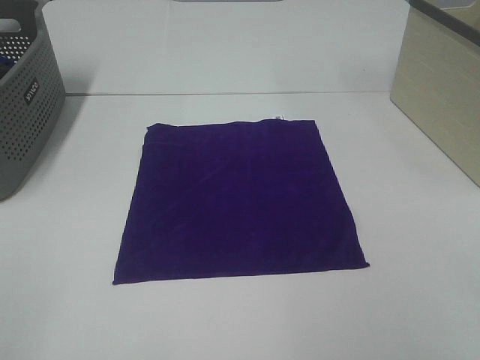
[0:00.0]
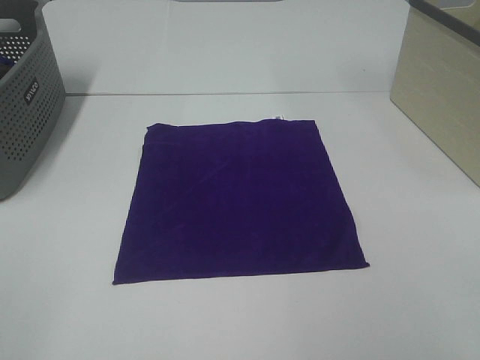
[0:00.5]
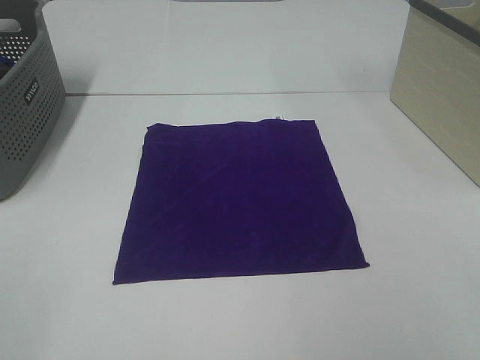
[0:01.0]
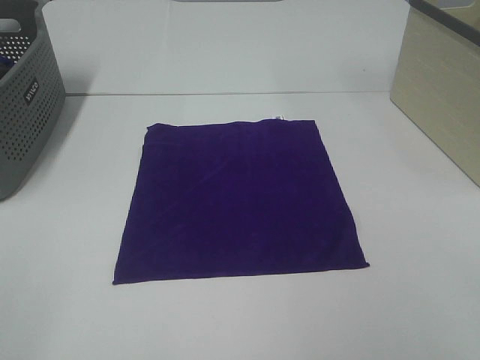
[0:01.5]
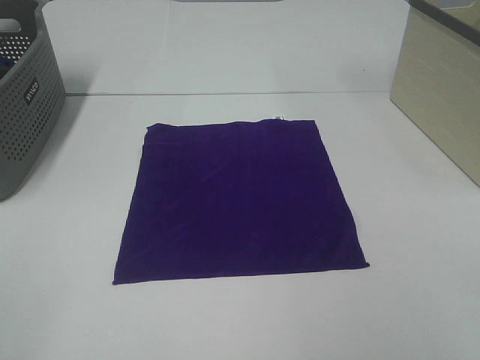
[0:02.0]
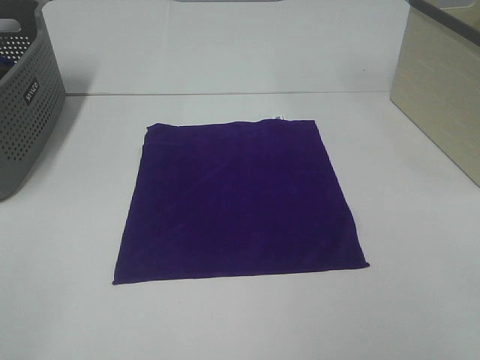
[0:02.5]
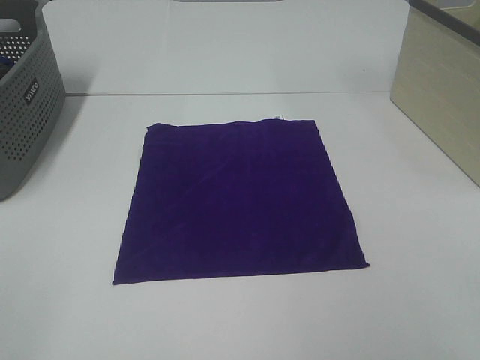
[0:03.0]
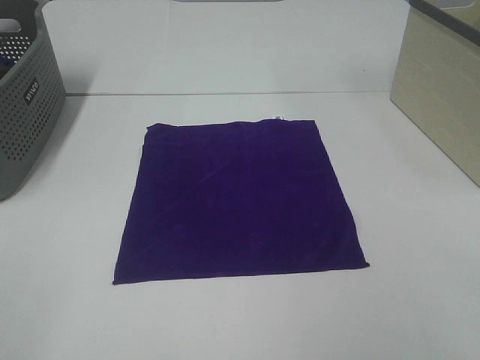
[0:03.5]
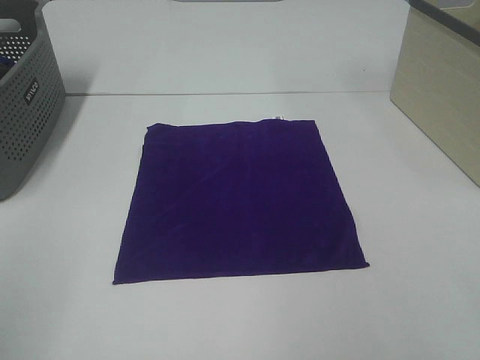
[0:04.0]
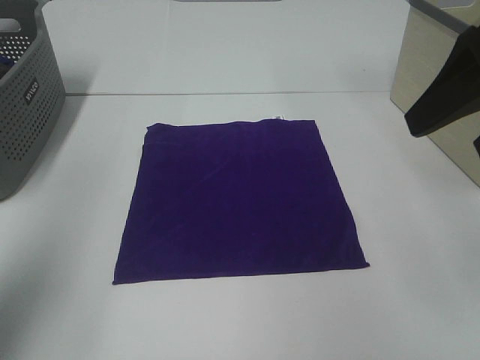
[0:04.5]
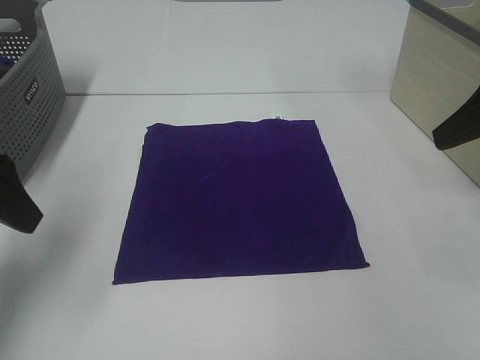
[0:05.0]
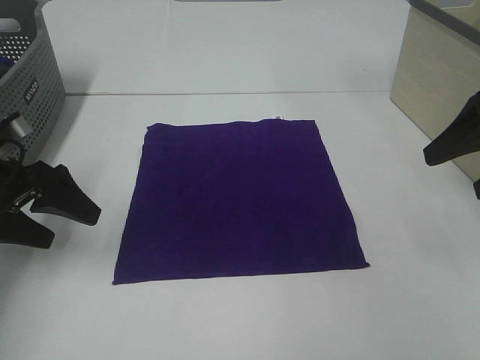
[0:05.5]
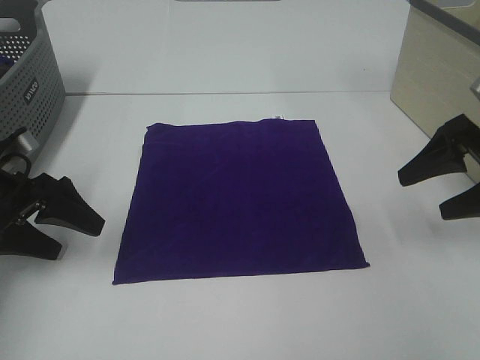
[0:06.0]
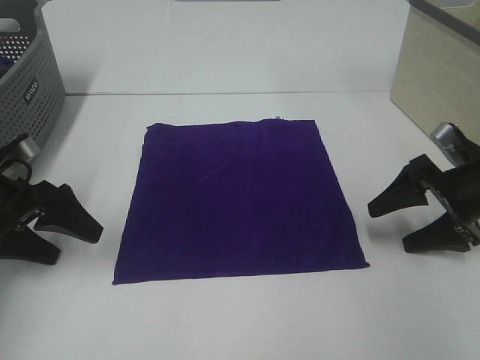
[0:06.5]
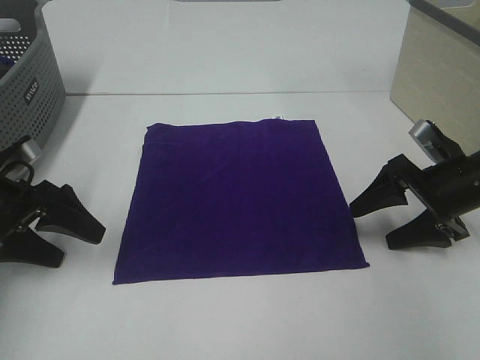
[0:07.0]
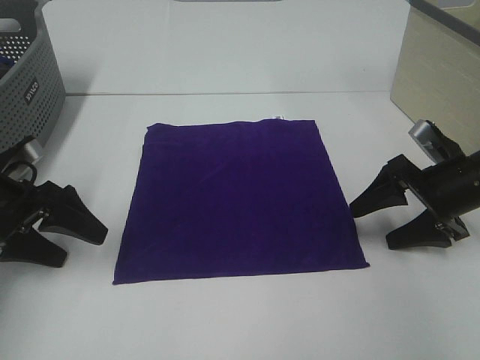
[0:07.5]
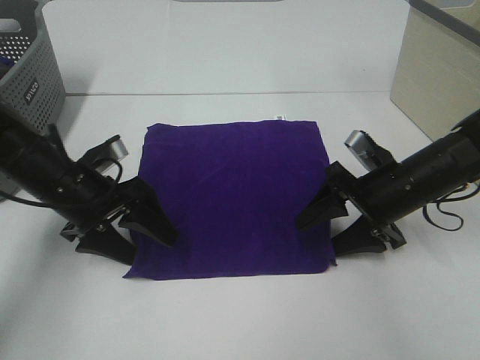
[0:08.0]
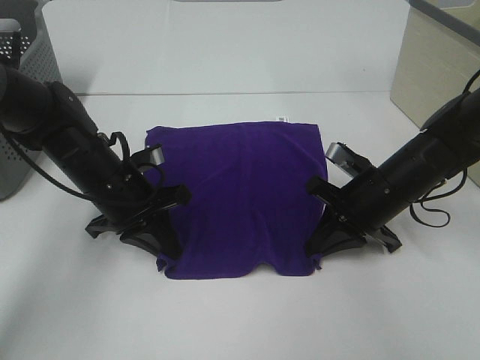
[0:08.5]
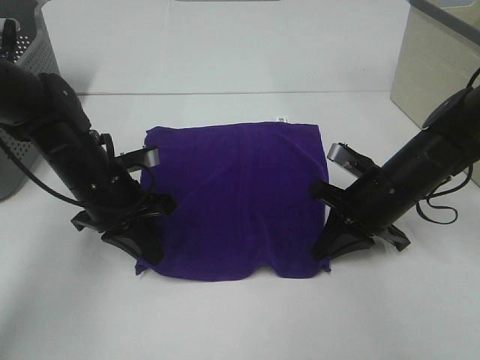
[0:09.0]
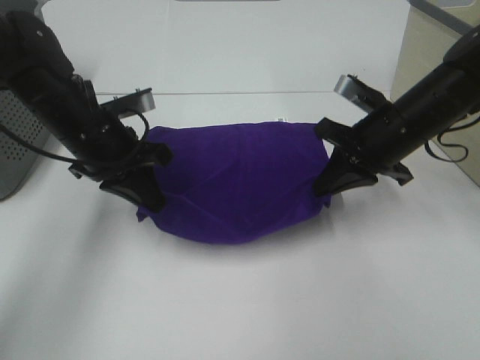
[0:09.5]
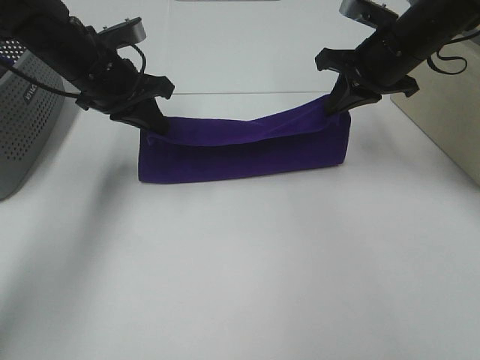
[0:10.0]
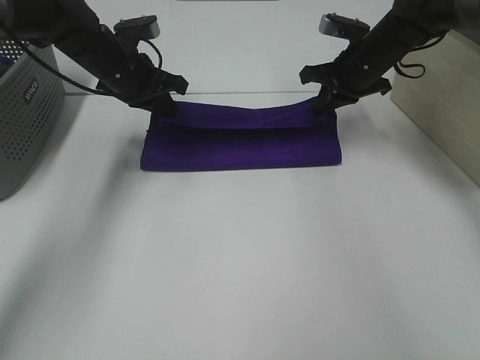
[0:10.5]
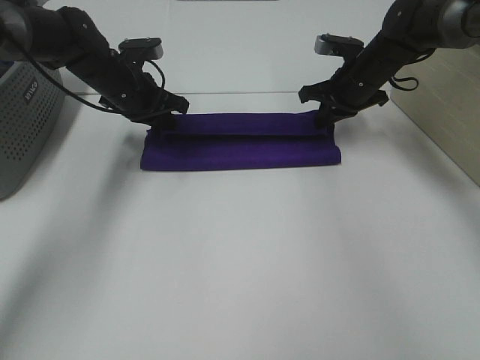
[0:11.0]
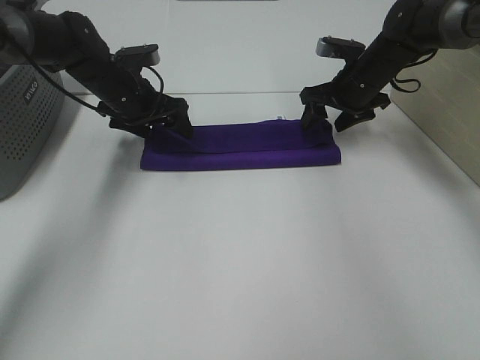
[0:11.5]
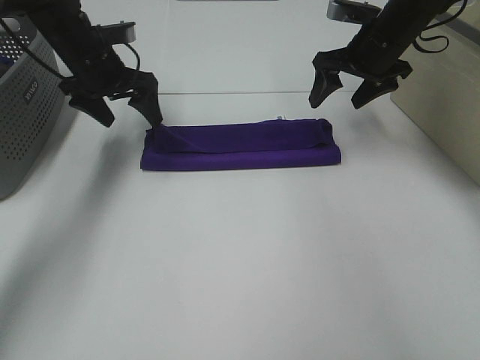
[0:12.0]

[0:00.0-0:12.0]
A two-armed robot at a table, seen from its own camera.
Task of the whole recording: Fold towels.
Step, 0:00.0 to 0:08.0: Left hand: grab the bottom left corner of purple towel.
Step, 0:00.0 to 0:08.0: Right hand: grab the bottom right corner of purple towel.
Step, 0:08.5 to 0:11.0: Left hand: fold the purple towel up.
Step, 0:08.5 to 0:11.0: Right hand: fold the purple towel up.
0:00.0 to 0:02.0: Both grippers stay about where they are.
0:04.0 to 0:06.0: Both grippers move forward and downward, about 30 cm.
0:06.0 to 0:08.0: The left gripper travels to the right by about 10 cm; the right gripper moves to the left and downward, approximately 15 cm.
0:08.0 to 0:10.0: The right gripper travels upward and forward by about 20 cm, and closes its fingers; the left gripper travels forward and upward by some 15 cm, and closes.
0:10.0 to 0:12.0: The two grippers go some 5 cm forward. The right gripper reaches about 10 cm downward, then returns, and opens its fingers; the left gripper opens its fingers.

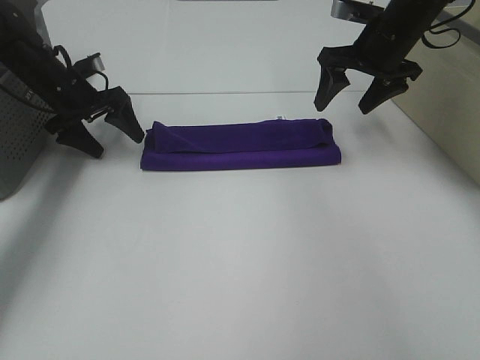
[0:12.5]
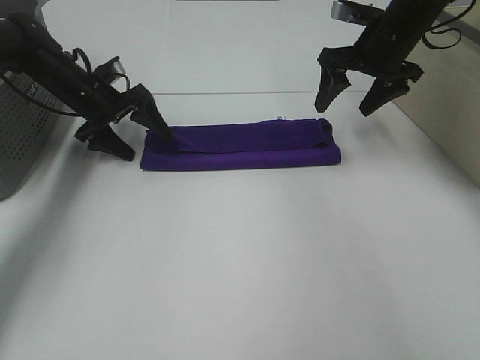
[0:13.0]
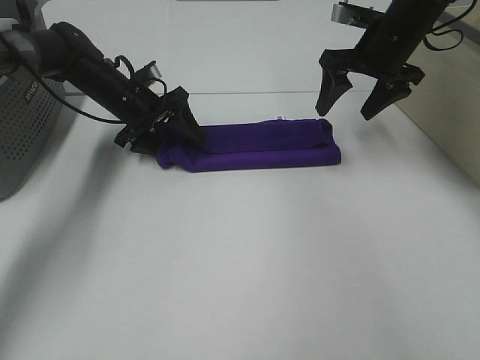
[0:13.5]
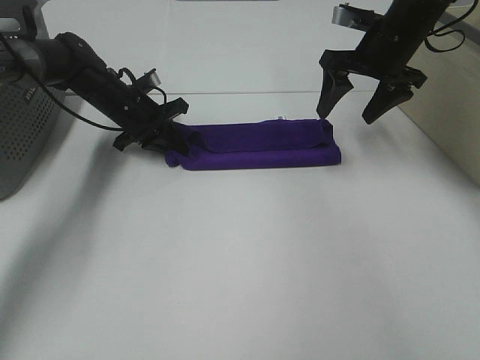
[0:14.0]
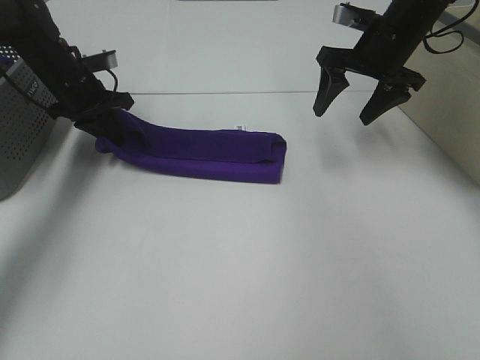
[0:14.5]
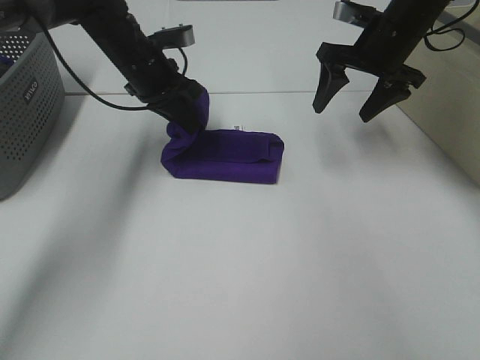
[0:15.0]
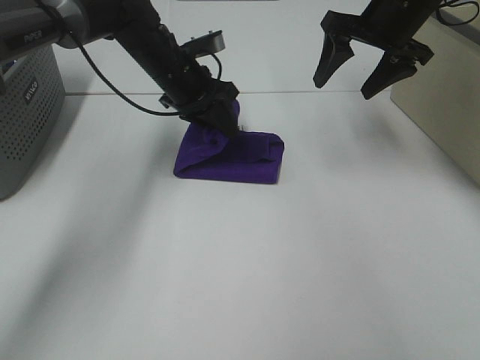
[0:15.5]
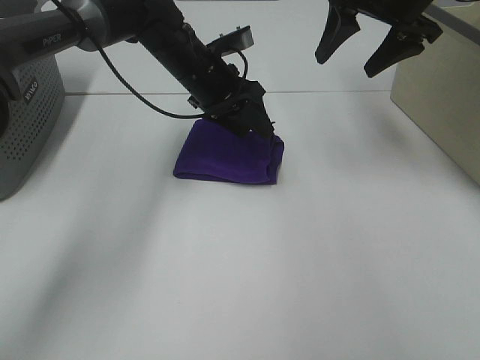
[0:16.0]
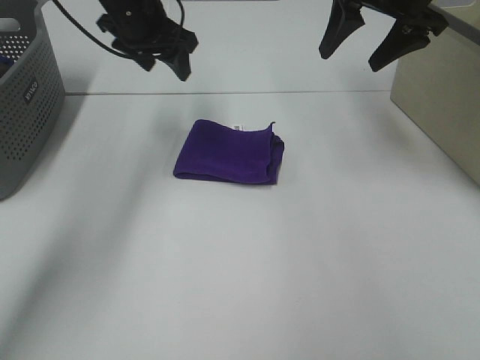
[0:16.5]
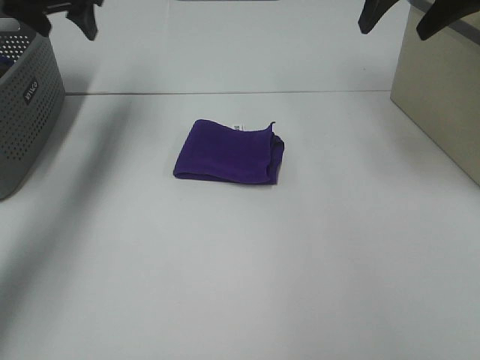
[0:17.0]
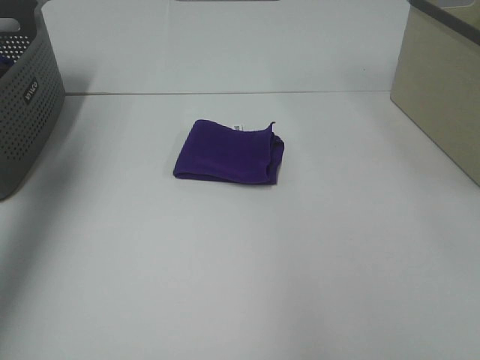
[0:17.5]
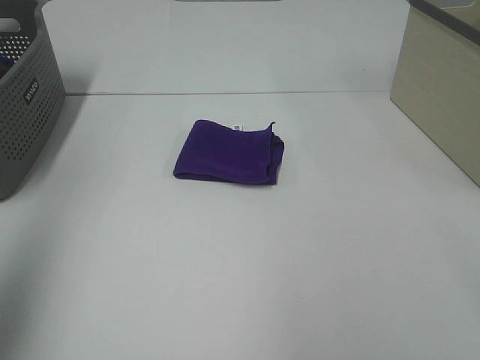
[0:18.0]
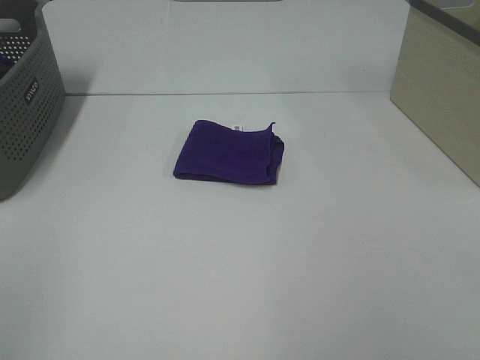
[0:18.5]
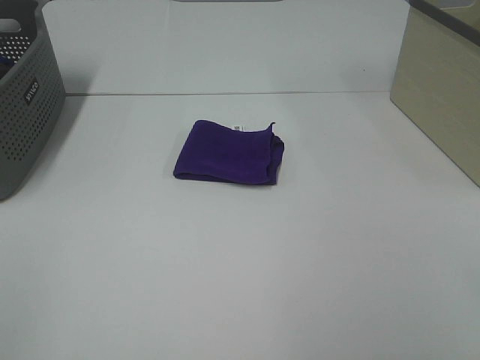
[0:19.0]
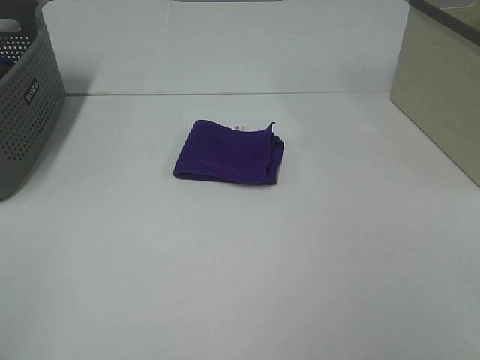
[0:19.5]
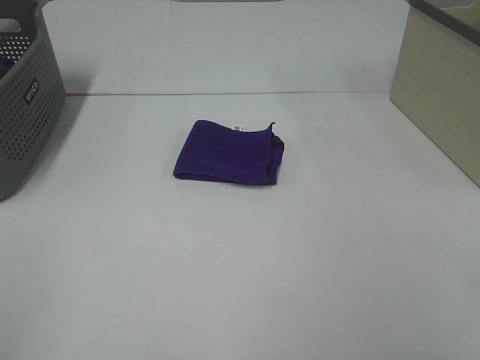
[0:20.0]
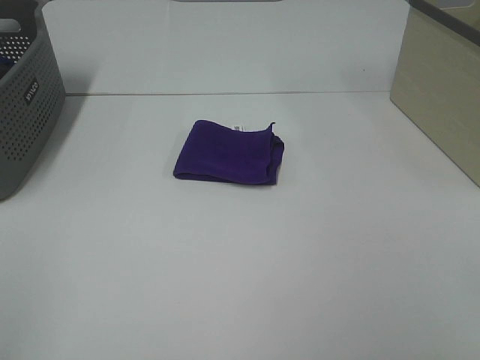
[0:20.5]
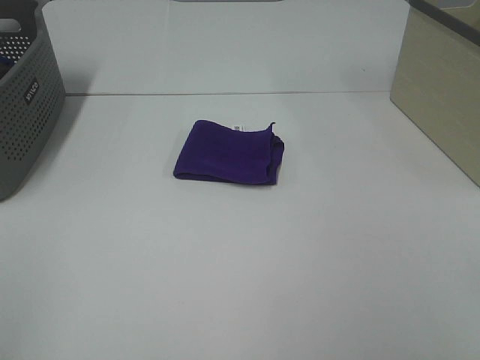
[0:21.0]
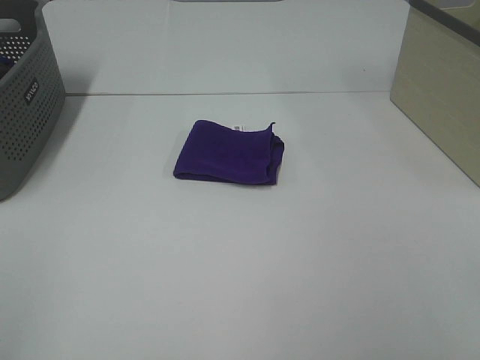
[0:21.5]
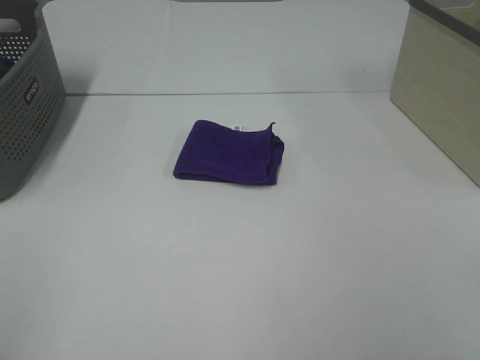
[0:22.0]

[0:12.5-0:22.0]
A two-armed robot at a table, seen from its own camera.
Task of the whole recording: Fold towels.
Step, 0:12.5 to 0:15.5: Left hand: fold the purple towel from left to right.
0:12.5 to 0:14.5: The left gripper reaches approximately 10 cm to the right, then returns, and closes.
0:14.5 to 0:16.5: The right gripper is displaced upward by about 10 cm; the left gripper is displaced upward and to the right by some 15 cm, and opens up.
0:16.5 to 0:18.0: The right gripper goes roughly 35 cm backward. Meanwhile the left gripper heads backward, to the left and upward, covering about 40 cm.
0:18.0 to 0:20.0: The left gripper moves backward and downward, roughly 20 cm.

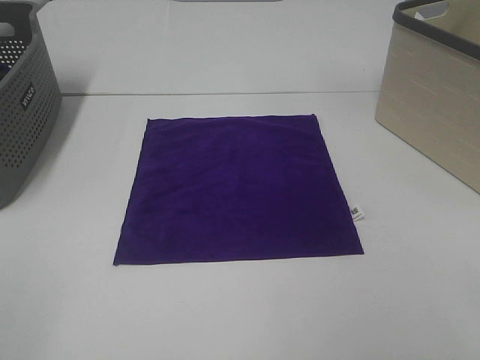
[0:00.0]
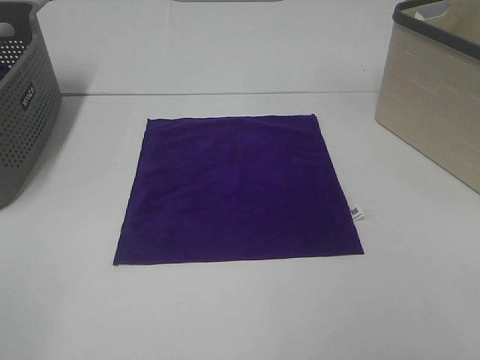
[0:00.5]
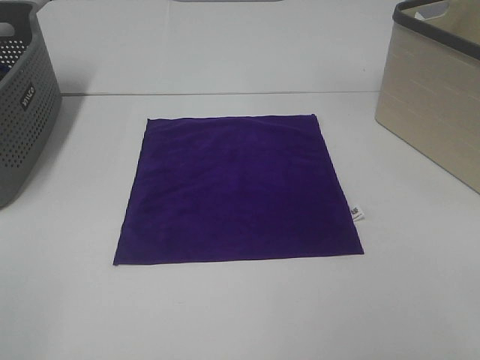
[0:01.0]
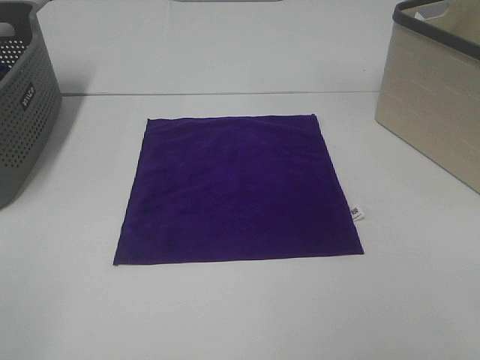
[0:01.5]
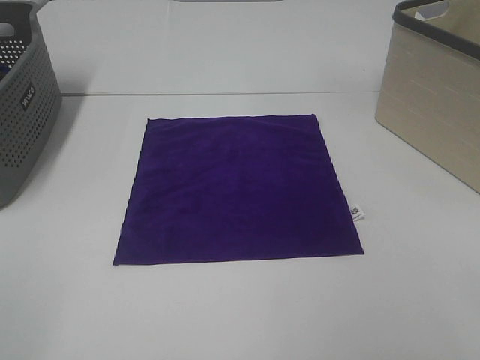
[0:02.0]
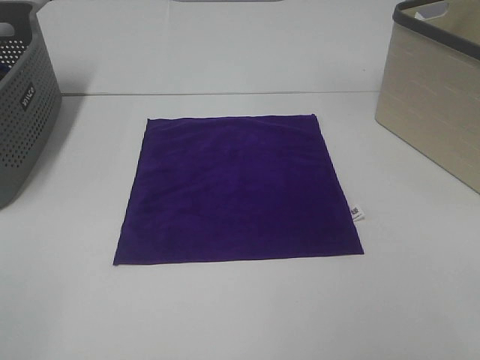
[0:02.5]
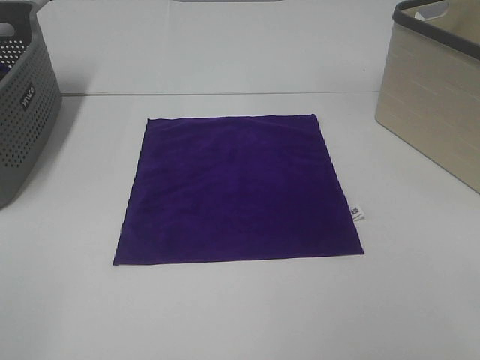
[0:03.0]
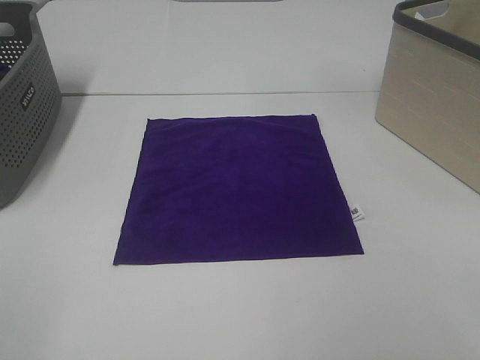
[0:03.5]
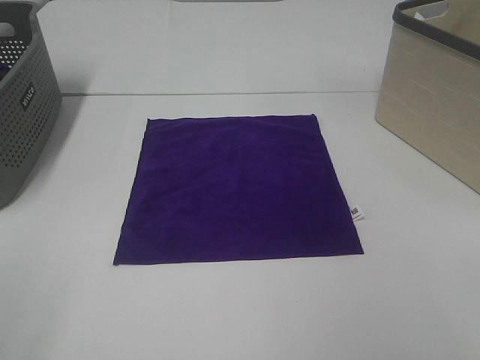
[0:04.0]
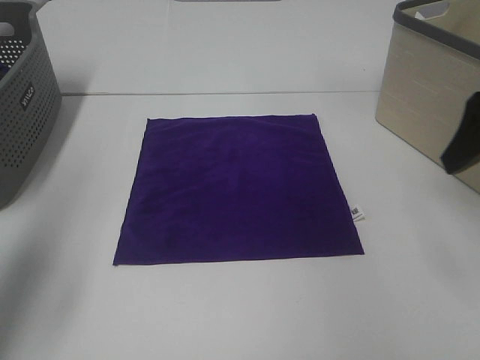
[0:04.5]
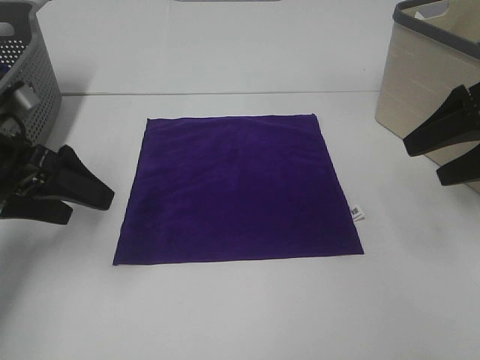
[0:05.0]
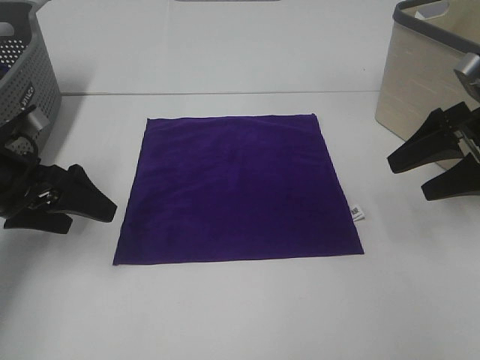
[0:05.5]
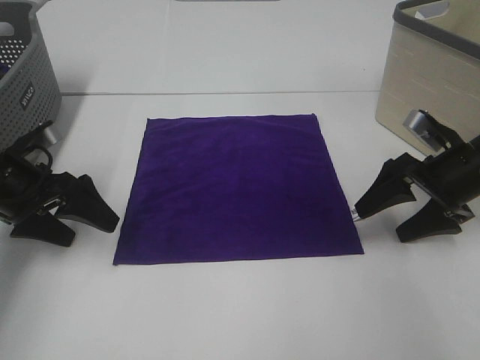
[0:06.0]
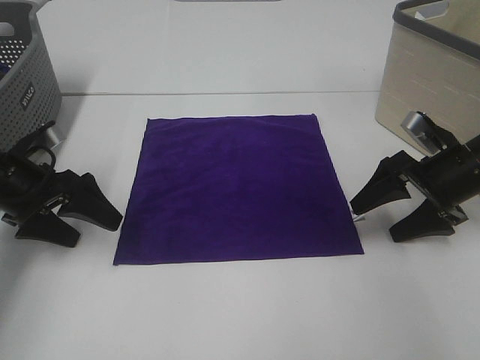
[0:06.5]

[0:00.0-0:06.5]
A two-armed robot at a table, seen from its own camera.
Task of the whole recording: Fold towels.
0:00.0 to 0:02.0: The two grippers keep their place.
0:02.0 to 0:04.5: The two grippers go approximately 25 cm forward.
0:04.5 to 0:06.5: Both grippers move downward and forward, roughly 20 cm.
